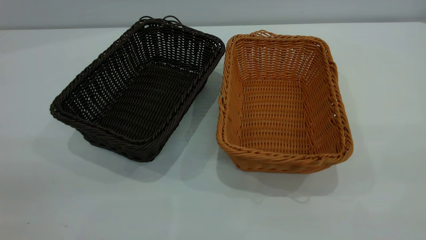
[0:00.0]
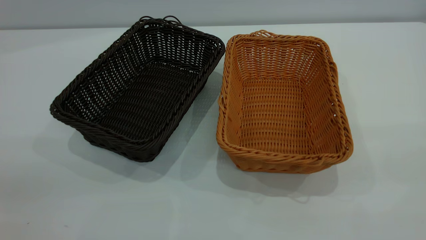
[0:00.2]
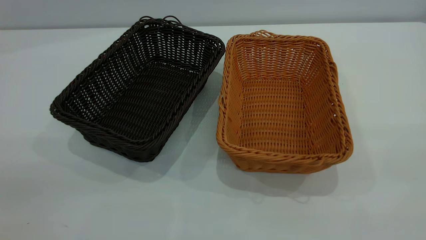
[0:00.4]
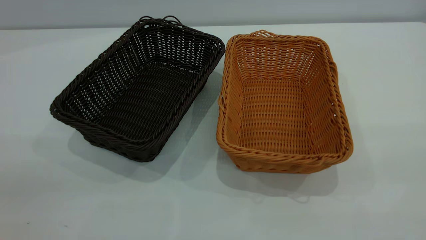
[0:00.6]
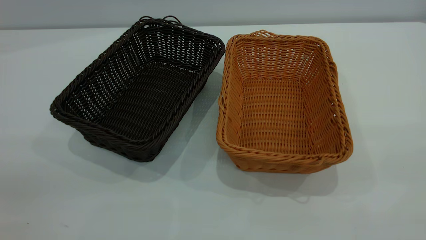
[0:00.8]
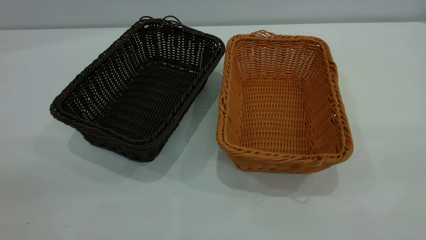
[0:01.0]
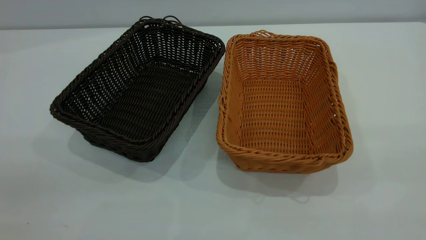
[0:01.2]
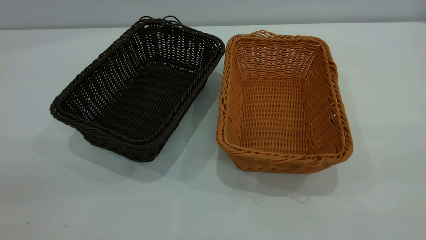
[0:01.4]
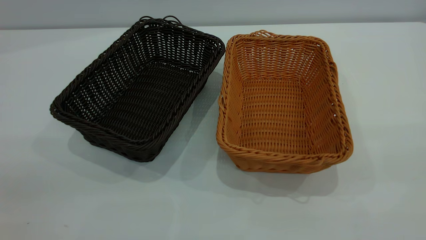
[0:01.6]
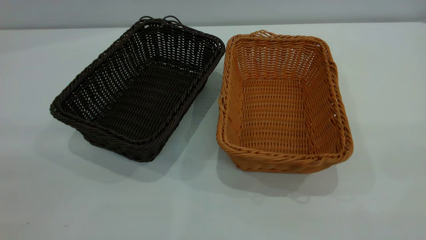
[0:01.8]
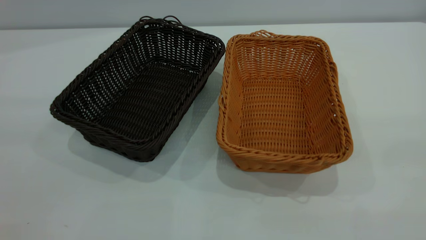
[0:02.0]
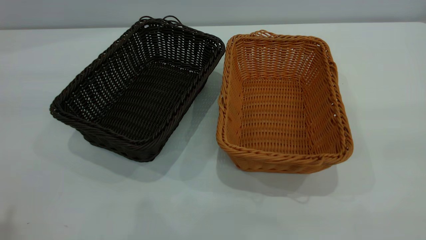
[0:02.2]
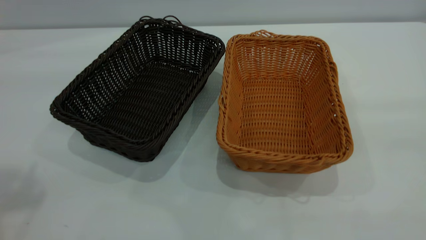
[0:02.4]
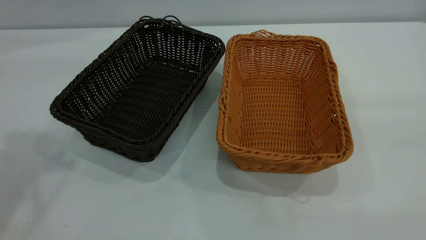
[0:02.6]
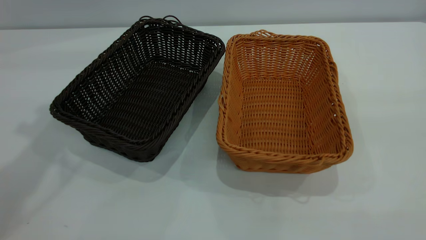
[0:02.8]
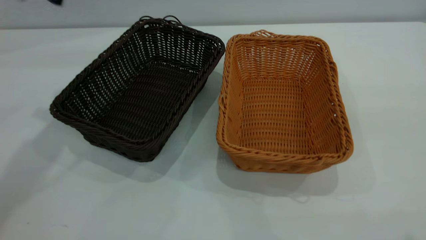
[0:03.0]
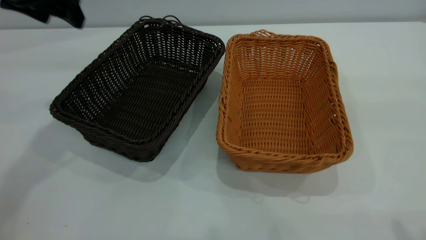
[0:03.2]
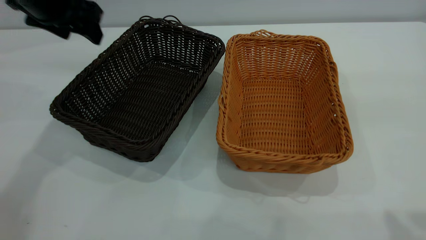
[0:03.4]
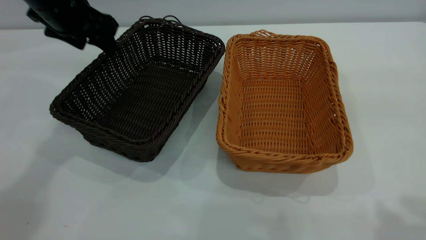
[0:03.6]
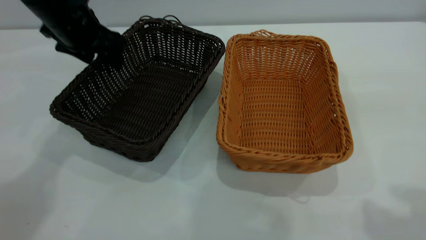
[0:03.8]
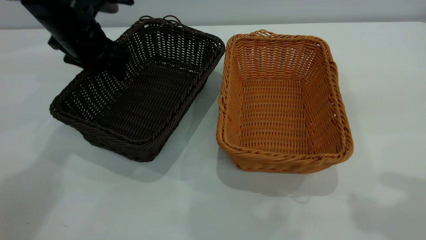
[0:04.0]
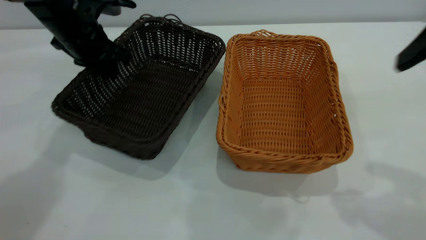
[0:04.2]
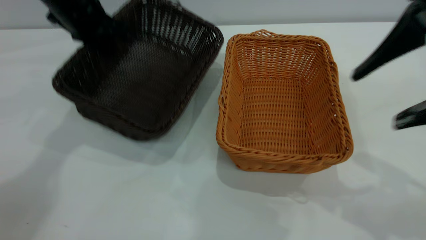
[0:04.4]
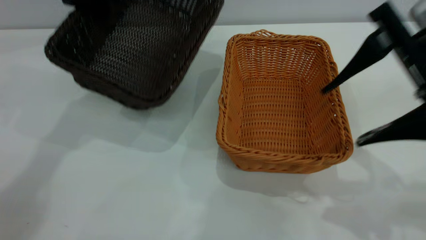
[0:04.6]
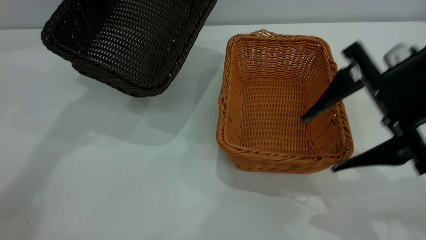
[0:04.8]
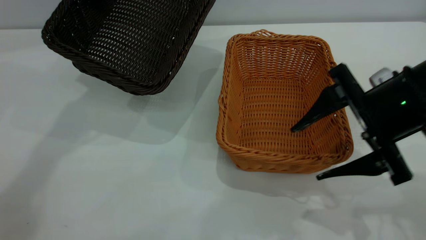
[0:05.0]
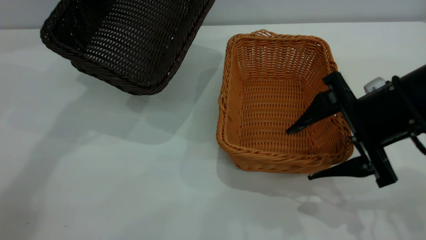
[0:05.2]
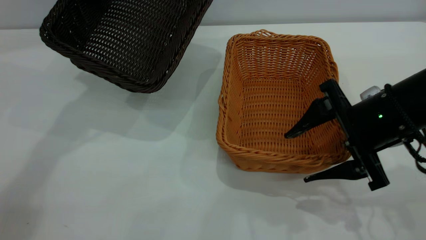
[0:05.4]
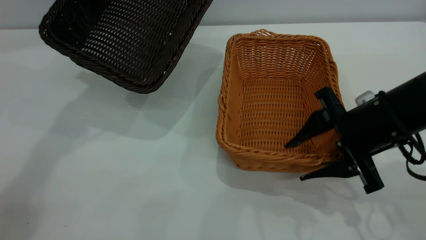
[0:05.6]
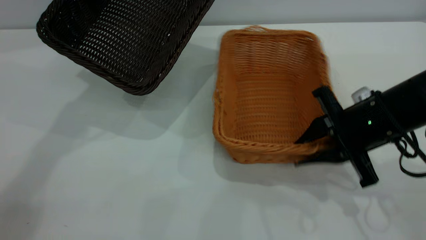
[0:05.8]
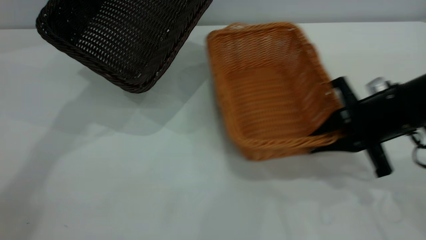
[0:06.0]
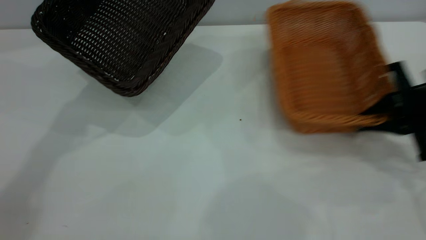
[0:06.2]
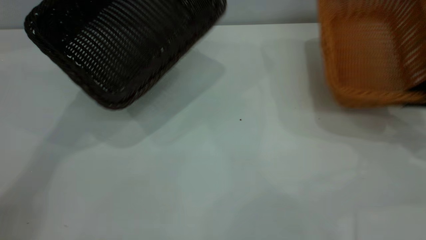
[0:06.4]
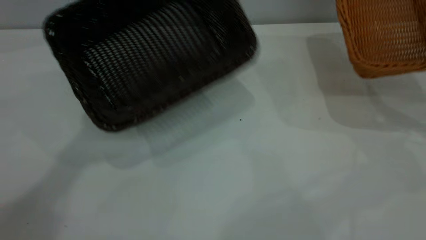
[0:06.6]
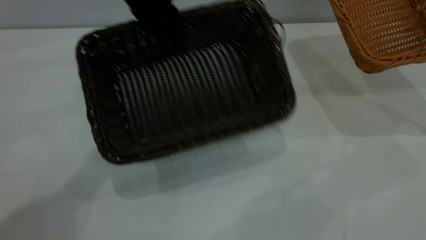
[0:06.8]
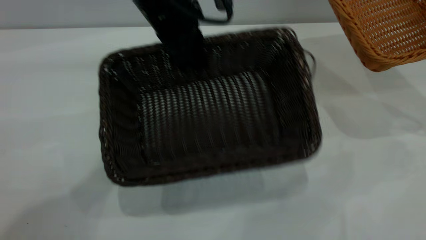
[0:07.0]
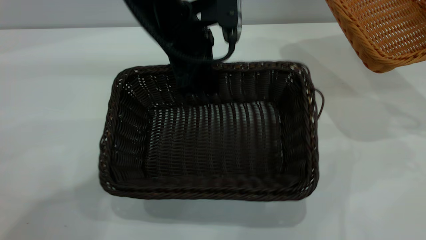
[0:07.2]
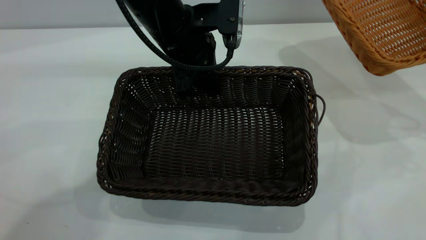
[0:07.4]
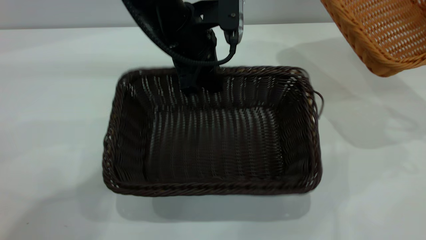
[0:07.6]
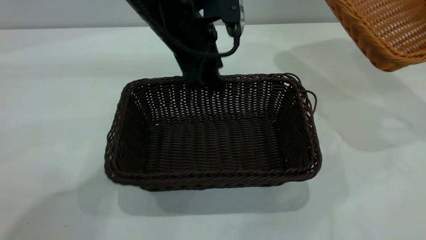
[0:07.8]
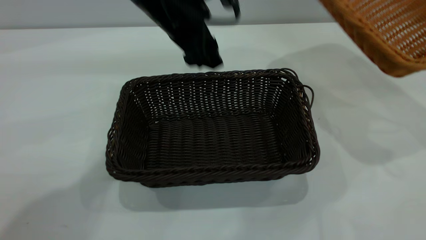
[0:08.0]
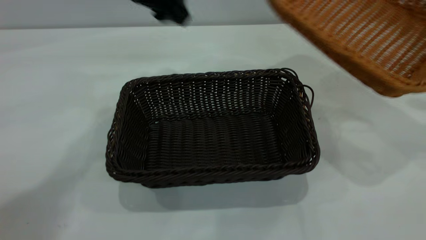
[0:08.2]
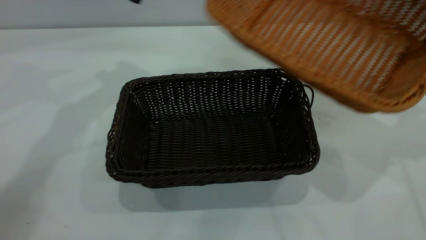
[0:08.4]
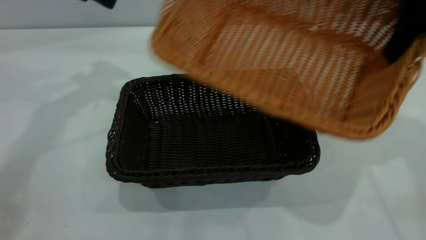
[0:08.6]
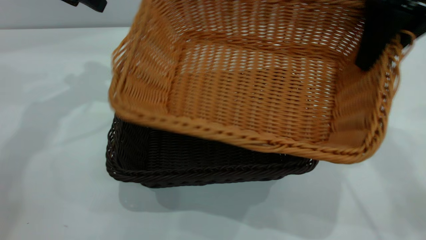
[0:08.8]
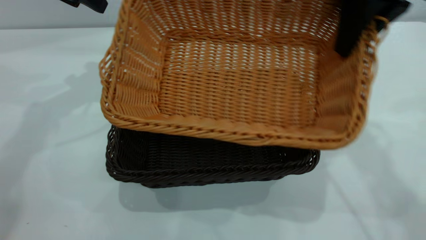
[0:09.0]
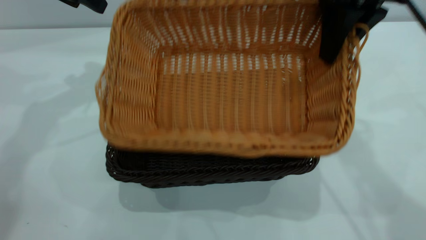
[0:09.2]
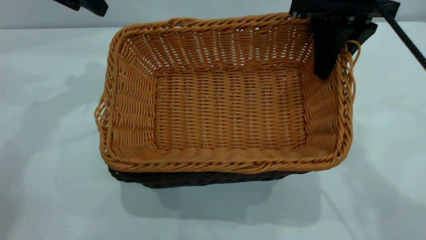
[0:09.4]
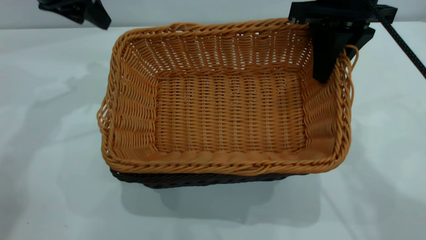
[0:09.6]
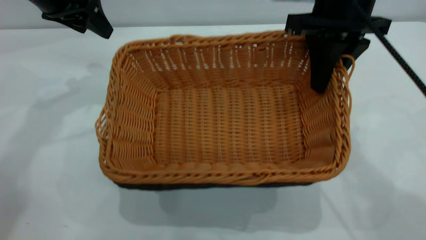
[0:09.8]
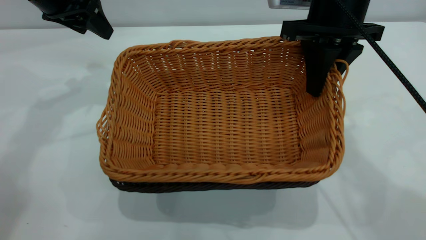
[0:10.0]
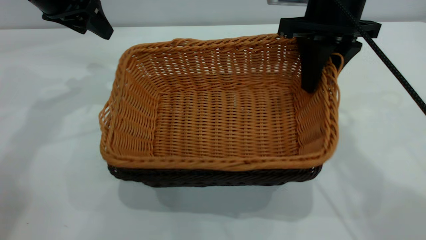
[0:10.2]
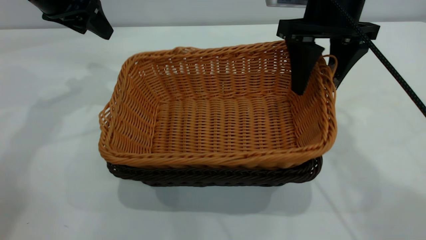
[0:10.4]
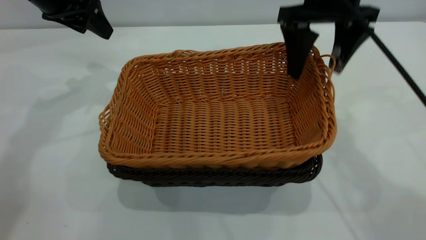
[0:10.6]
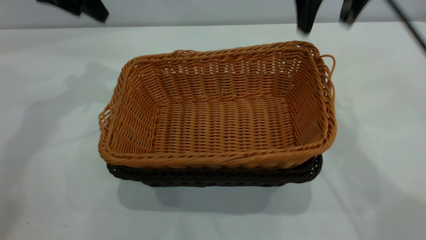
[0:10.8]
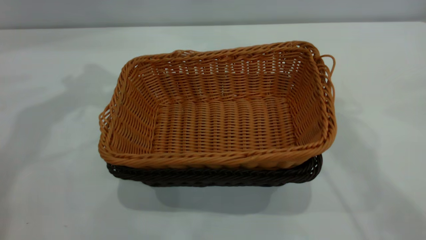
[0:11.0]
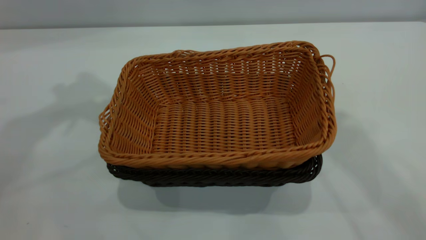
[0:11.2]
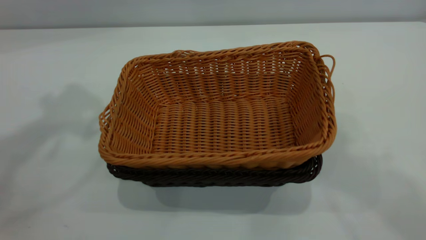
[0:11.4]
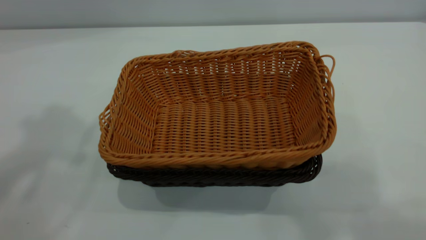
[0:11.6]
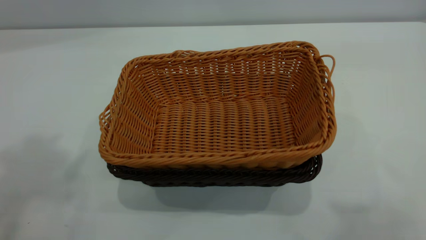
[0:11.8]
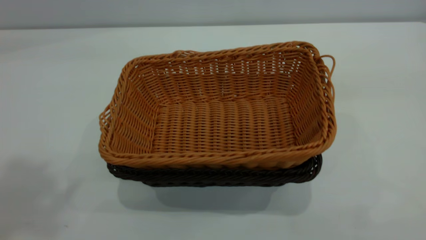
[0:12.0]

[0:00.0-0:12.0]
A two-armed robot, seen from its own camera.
Task of the whole recording: the left gripper grasp the black basket and place it in the center of the table, the right gripper grasp the brown basket and place it inside the black one.
Step, 0:00.0 to 0:06.4: Pick up the light basket with the right gripper.
Step, 0:06.6 to 0:08.0: Move the dark basket to the center of view.
Step, 0:08.2 to 0:10.6: Place the light basket on the dark basket.
0:00.0 to 0:01.6: The two grippers keep their place.
0:03.0 to 0:04.4: The right gripper is displaced forward and downward by some 20 cm. Meanwhile the left gripper moves downward and forward, some 10 cm, and closes.
0:04.4 to 0:06.0: The left gripper goes roughly 5 cm upward; the right gripper shifts about 20 cm downward and forward, and closes.
0:06.0 to 0:07.6: The left gripper travels to the right, downward and backward by approximately 20 cm. The right gripper heads to the right and upward, covering roughly 20 cm.
0:07.6 to 0:09.0: The two grippers go some 25 cm to the left. The left gripper opens.
0:09.0 to 0:10.4: The right gripper shifts about 5 cm downward, and opens its fingers.
0:10.4 to 0:12.0: The grippers both shift upward and backward by approximately 40 cm.

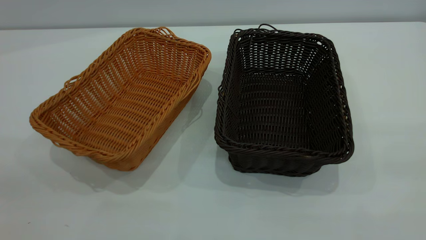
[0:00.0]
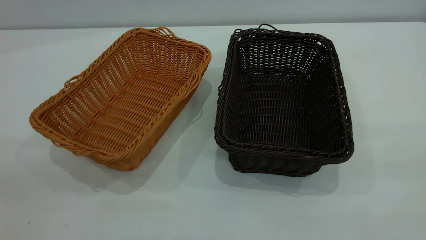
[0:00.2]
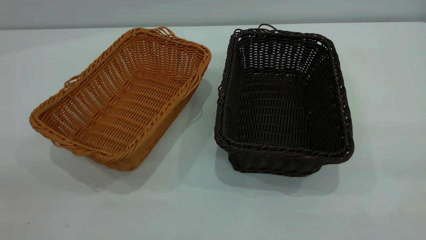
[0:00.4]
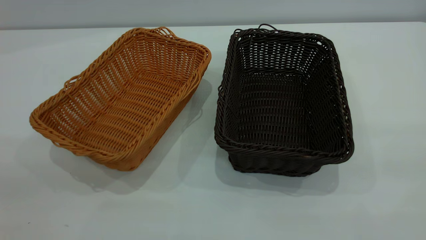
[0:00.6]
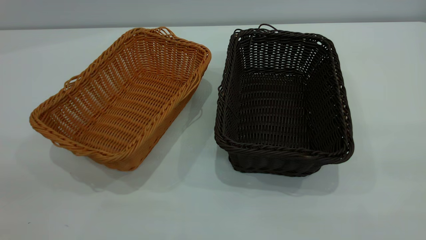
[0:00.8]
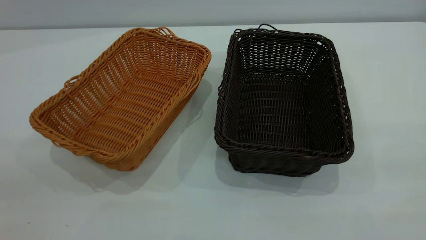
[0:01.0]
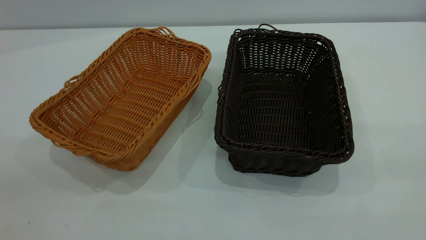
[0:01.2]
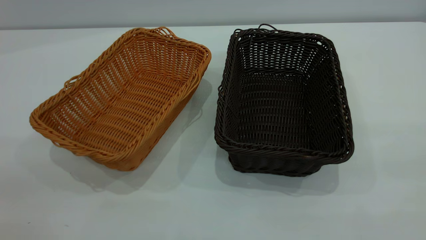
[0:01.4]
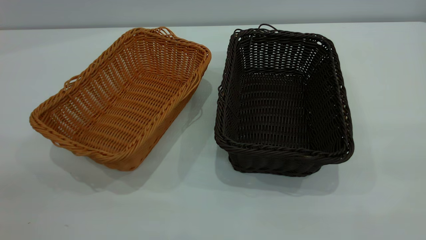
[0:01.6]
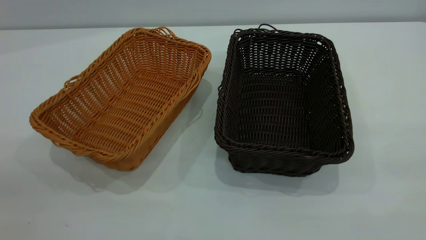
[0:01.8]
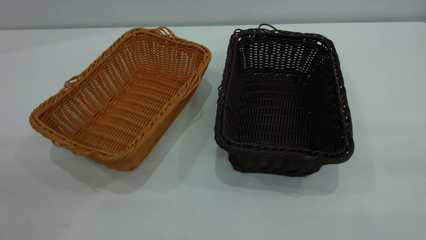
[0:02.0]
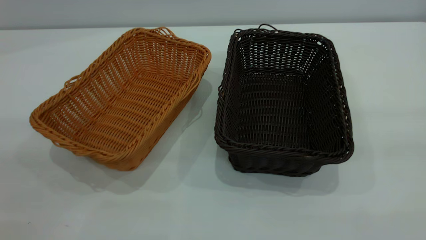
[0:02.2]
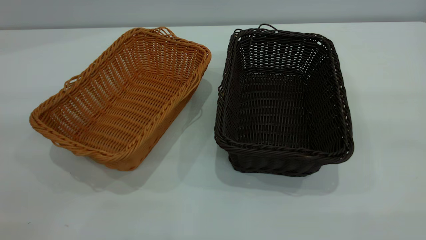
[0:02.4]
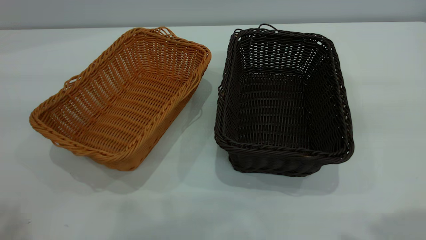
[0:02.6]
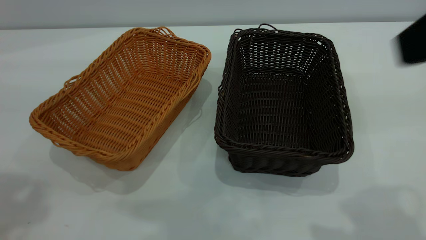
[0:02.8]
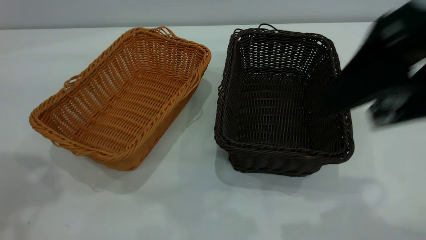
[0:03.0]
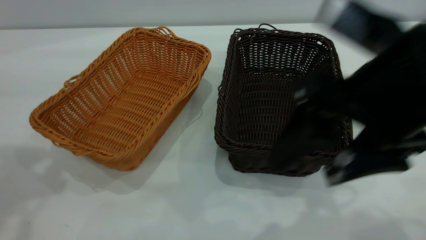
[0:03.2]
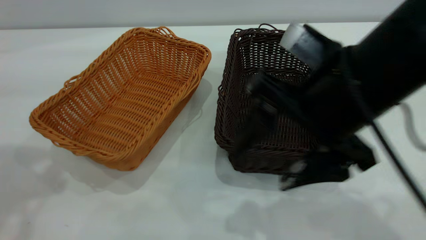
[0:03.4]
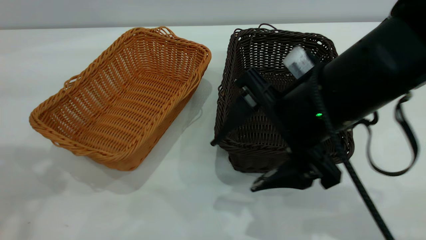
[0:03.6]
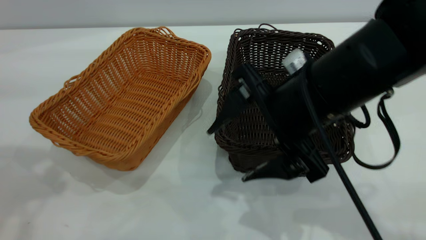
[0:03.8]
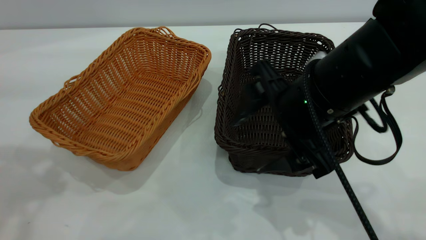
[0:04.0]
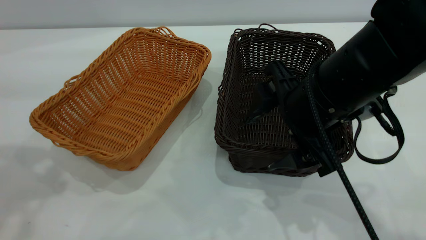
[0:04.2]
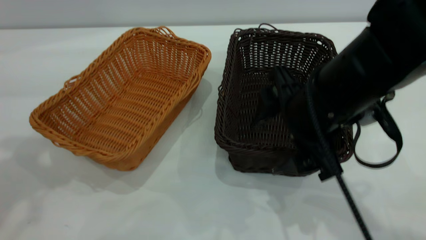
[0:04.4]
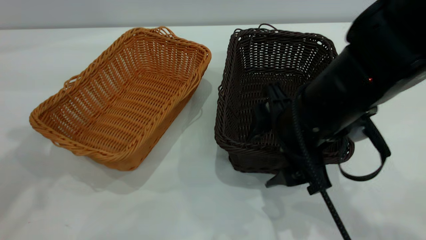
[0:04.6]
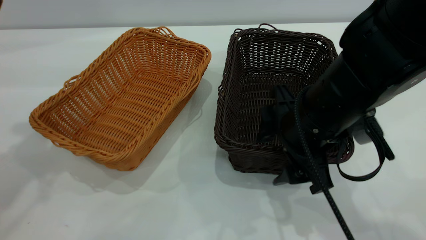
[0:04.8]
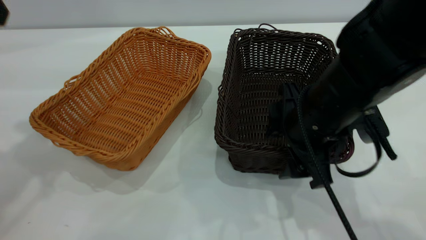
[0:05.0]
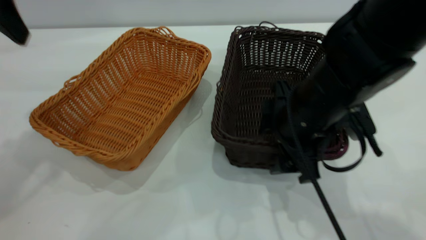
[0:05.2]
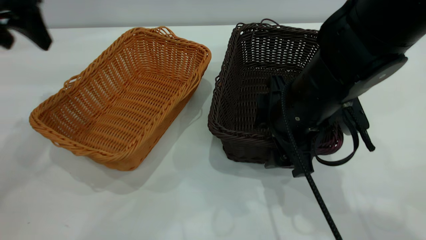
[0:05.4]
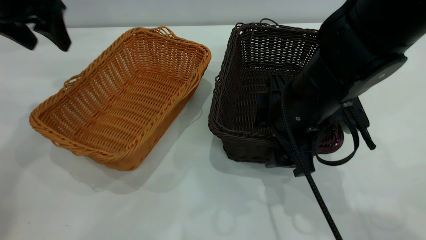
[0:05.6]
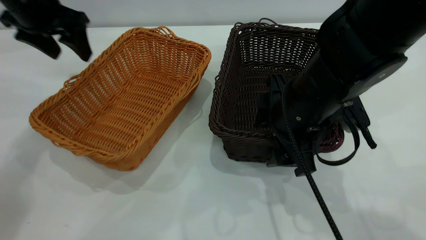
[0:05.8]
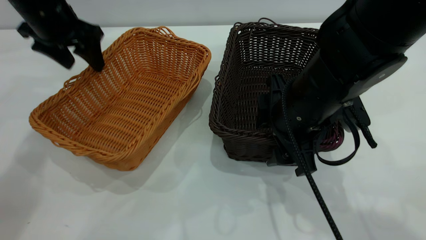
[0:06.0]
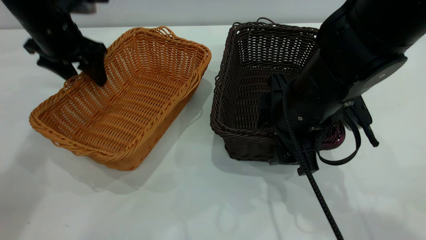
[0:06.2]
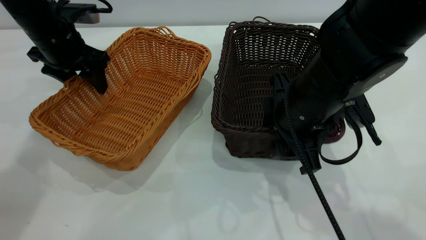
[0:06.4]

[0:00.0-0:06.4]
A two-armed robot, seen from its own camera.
Task of the whole recording: the left gripper grasp the brown basket and place it in the center of the table, the right gripper grasp the black basket and place it inside the brown one.
0:01.6 to 0:03.2: The right gripper shifts some 25 cm forward, to the left and downward, and opens its fingers.
0:03.2 to 0:04.8: The left gripper ends up roughly 5 cm from where it was. The right gripper is displaced downward and forward by some 10 cm.
0:04.8 to 0:06.4: The left gripper is displaced downward and forward by approximately 25 cm, while the right gripper closes.
